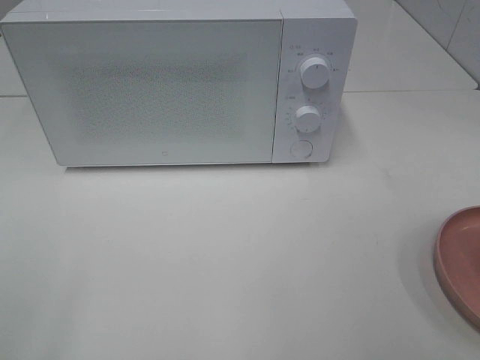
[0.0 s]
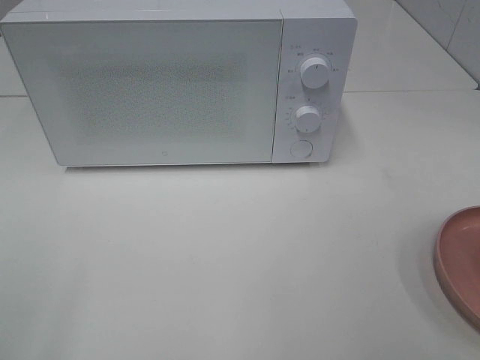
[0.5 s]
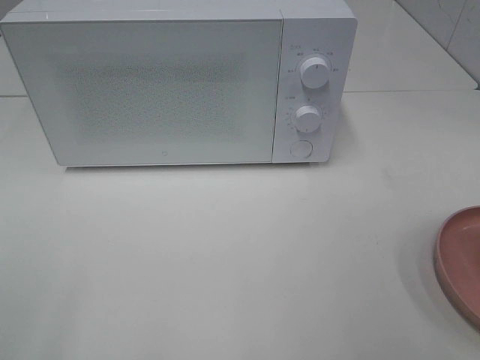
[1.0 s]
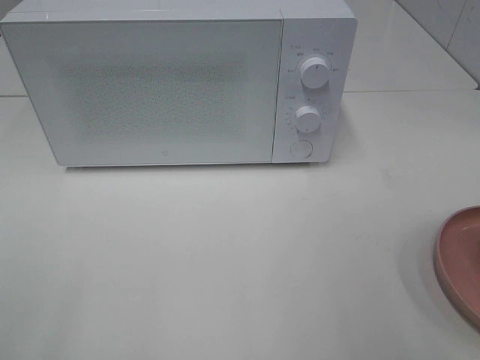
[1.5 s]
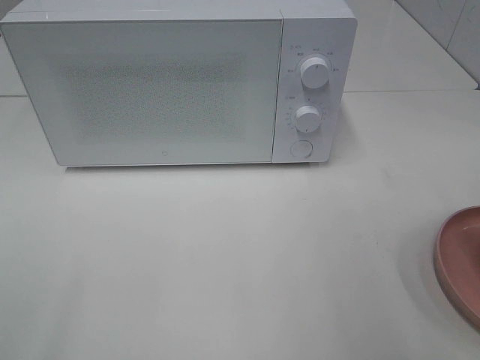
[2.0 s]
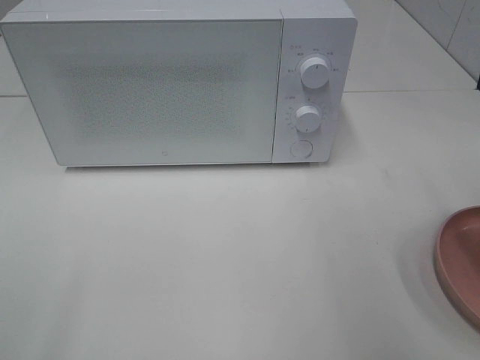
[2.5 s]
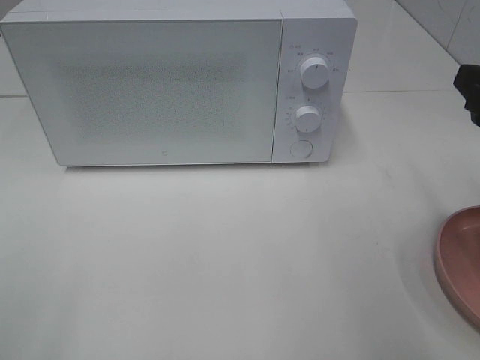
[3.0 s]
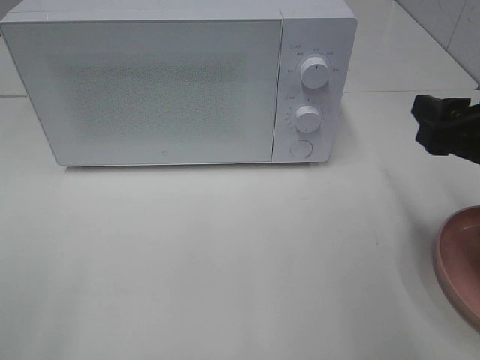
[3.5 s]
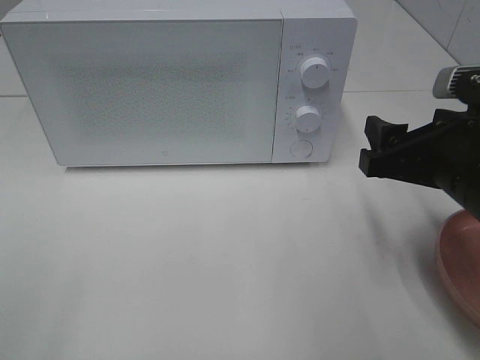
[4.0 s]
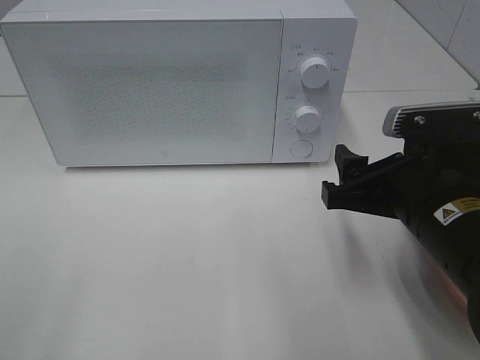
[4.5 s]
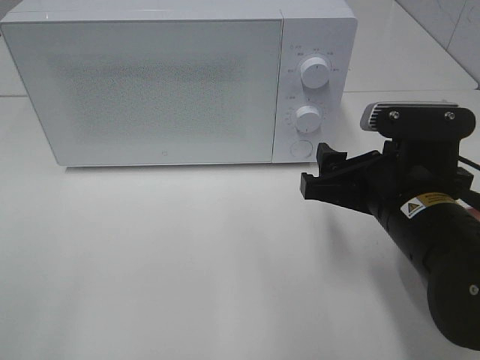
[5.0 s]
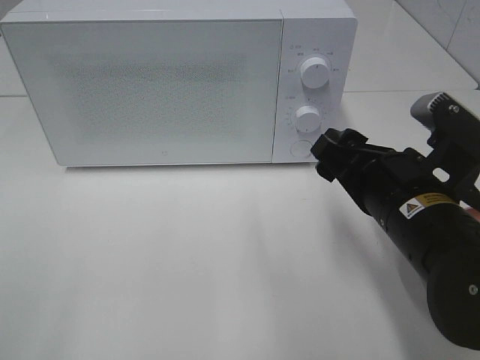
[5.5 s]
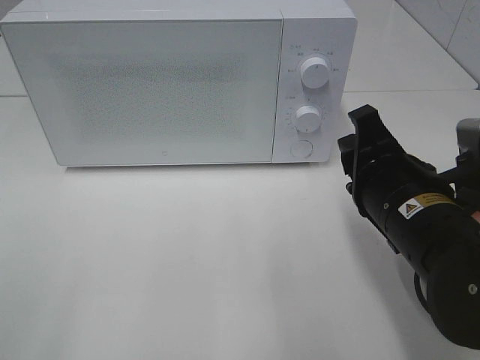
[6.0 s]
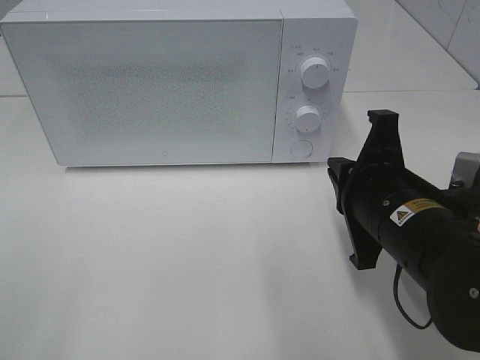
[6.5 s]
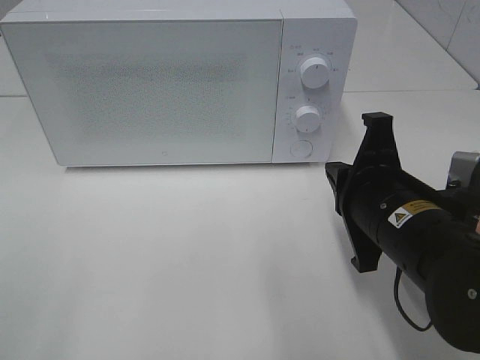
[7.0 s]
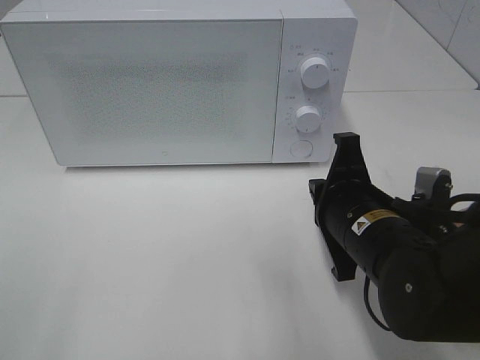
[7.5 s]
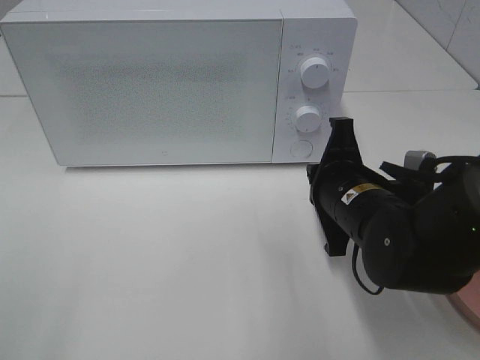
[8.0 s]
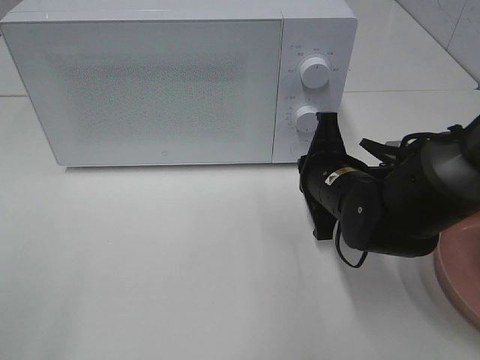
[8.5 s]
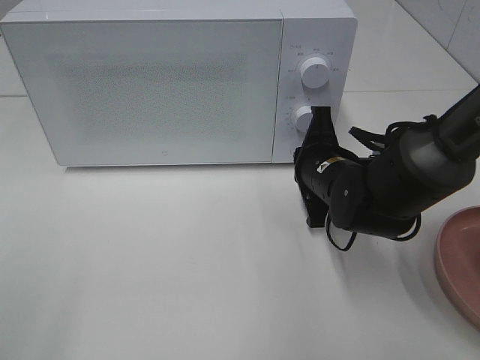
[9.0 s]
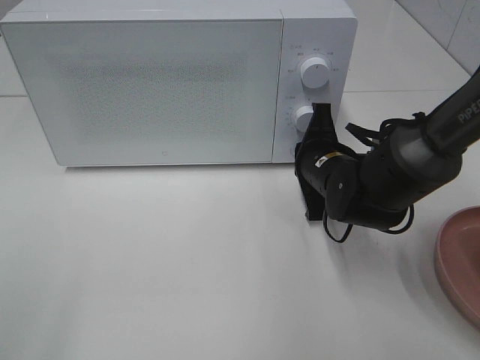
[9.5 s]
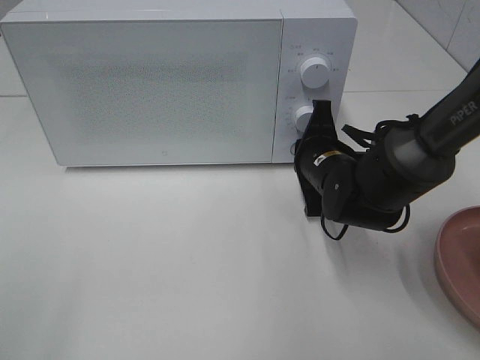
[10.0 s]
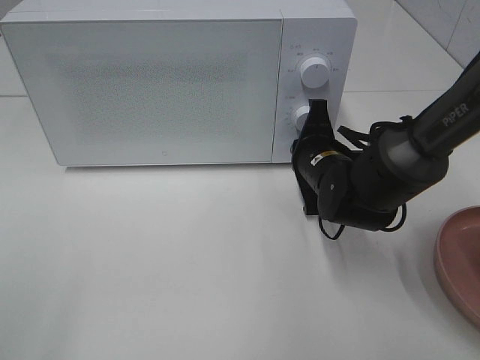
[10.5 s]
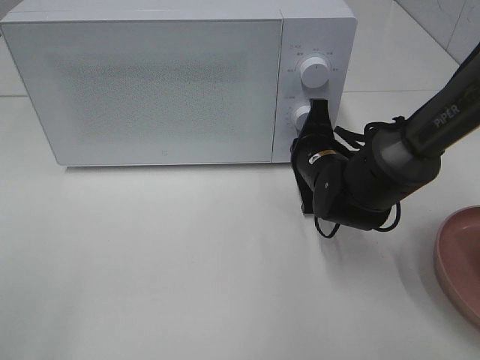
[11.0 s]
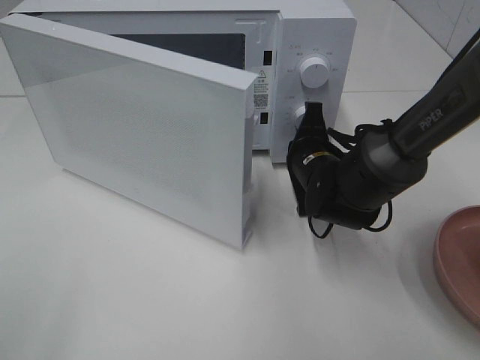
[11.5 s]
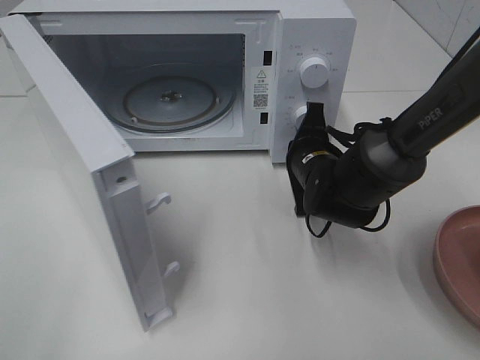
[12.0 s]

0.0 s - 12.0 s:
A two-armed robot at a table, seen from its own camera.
Task of the whole recording: Heat the burger.
2.0 s - 4.0 s: The right gripper travels downward, to the left and forward by roughly 15 cm.
4.0 s - 6.0 s: The right gripper shifts approximately 5 cm to the left, and closes up.
6.0 s - 8.0 s: The right gripper shifts by roughly 5 cm, and closes its fingers.
8.0 s - 10.0 s: The right gripper heads forward, covering some 10 cm.

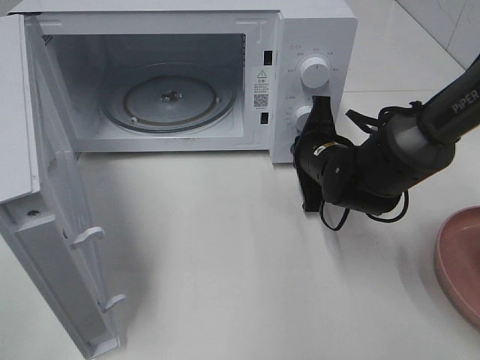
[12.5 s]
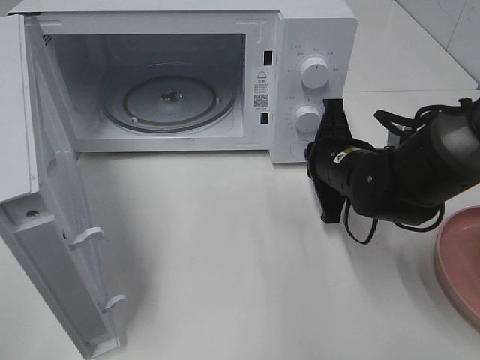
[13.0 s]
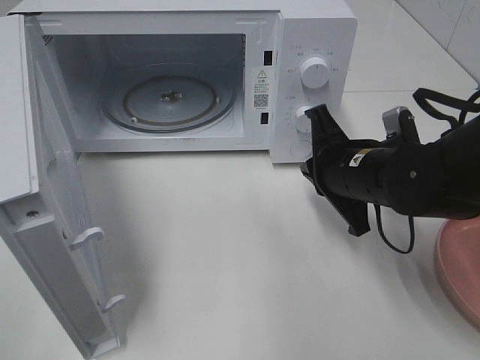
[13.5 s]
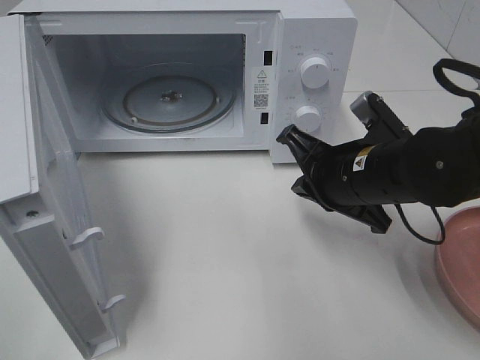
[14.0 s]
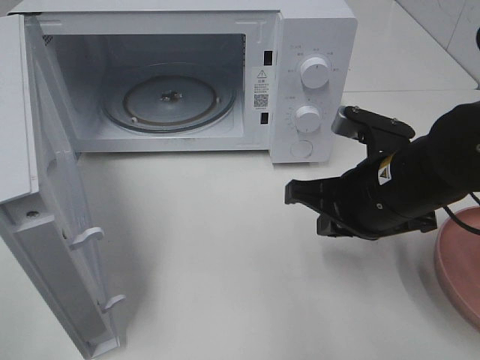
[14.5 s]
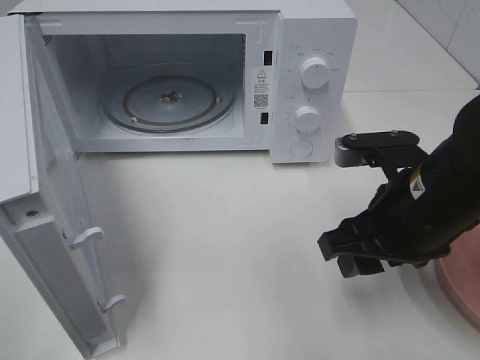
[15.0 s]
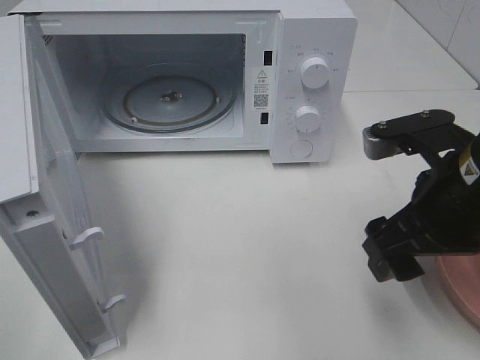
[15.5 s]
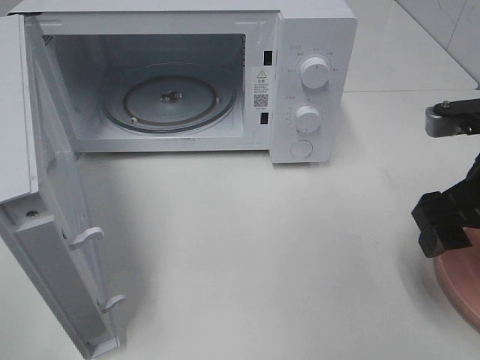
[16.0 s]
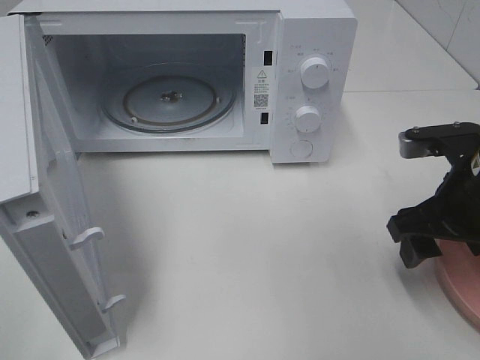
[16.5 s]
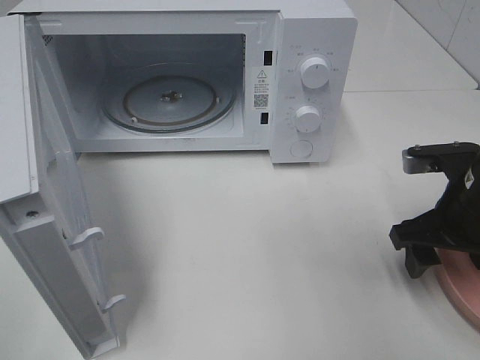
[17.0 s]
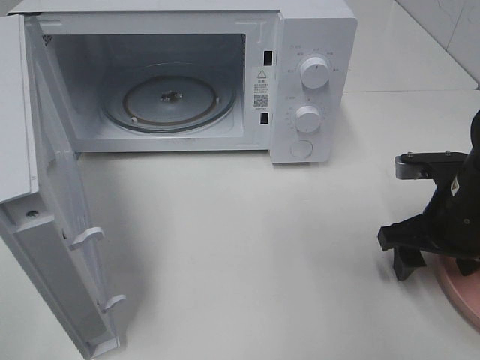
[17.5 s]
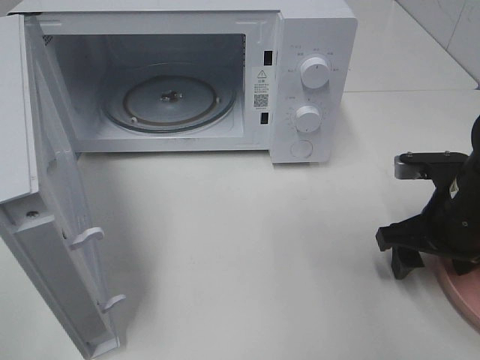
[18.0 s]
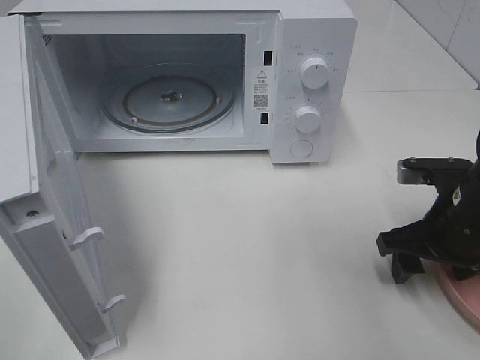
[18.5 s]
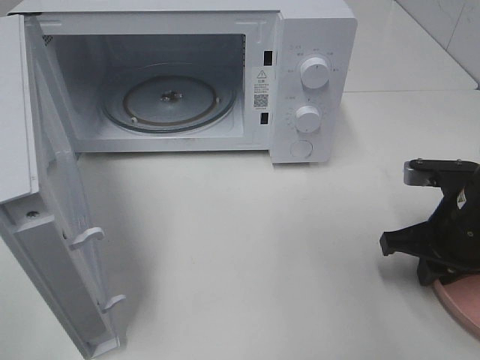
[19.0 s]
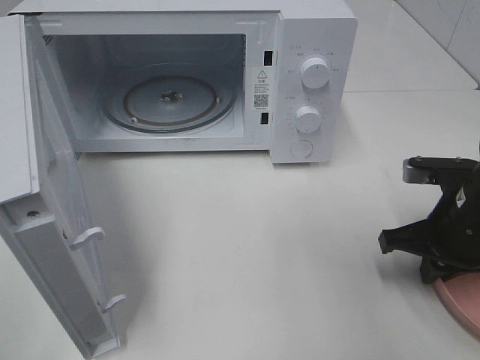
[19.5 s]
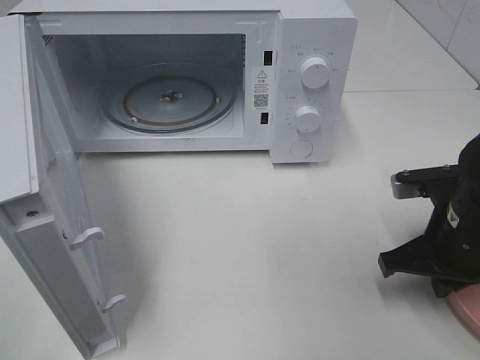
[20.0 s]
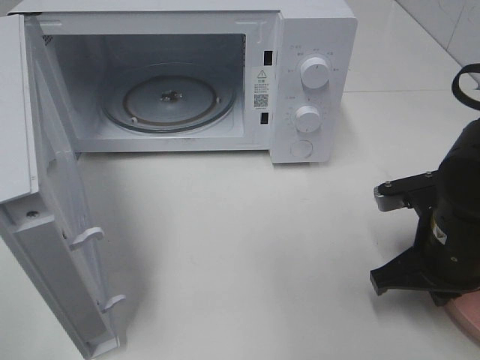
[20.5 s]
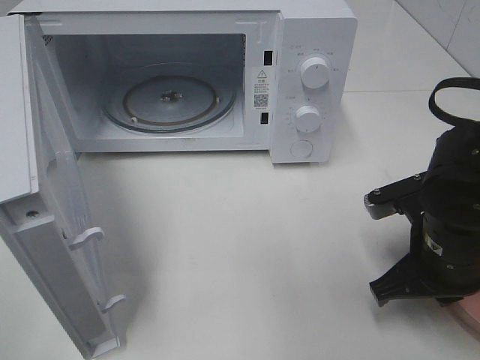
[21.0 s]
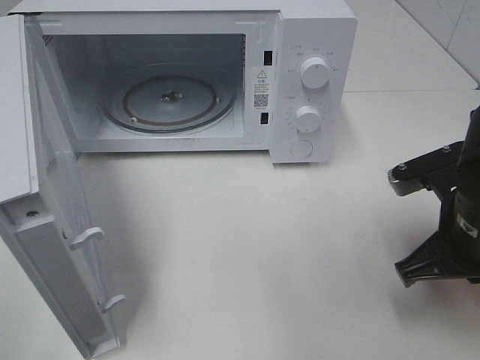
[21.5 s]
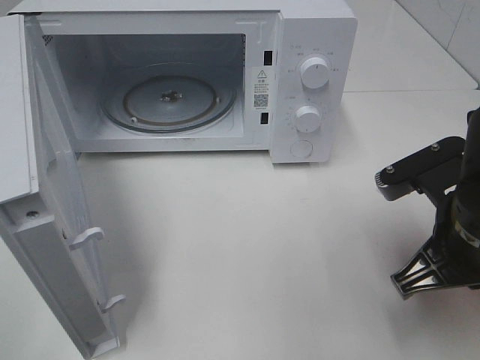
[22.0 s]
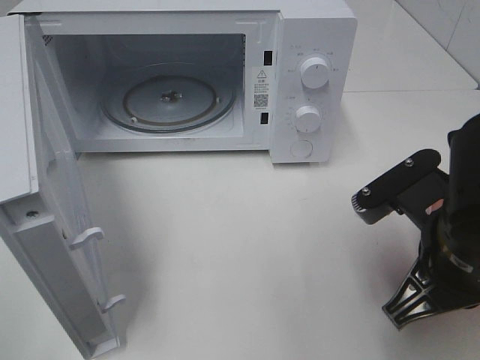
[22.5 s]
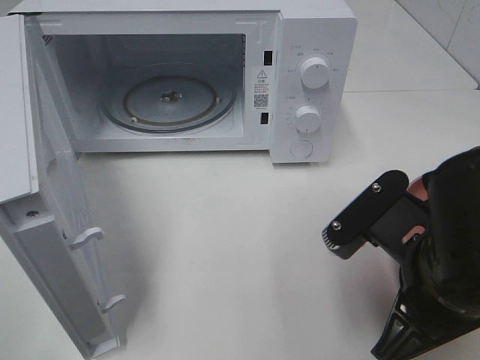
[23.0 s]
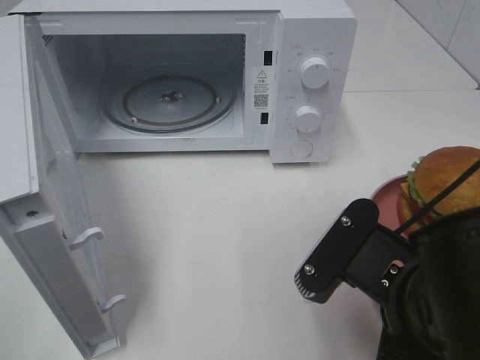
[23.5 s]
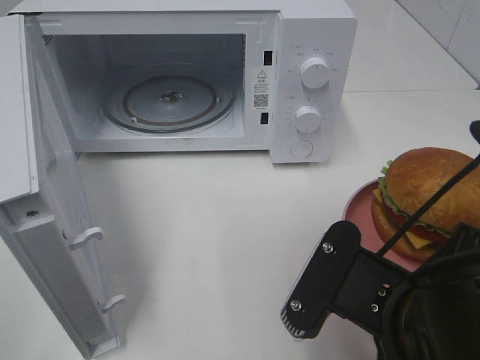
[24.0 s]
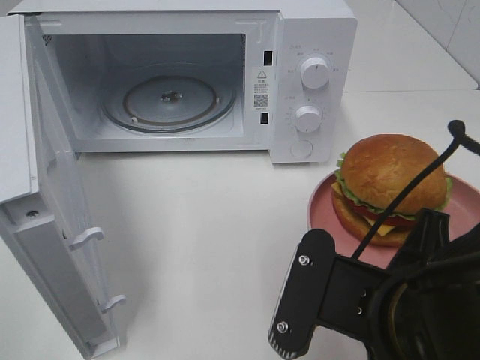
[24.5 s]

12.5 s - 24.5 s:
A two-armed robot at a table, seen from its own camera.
Task of the whole recording: Heat the burger.
Step, 13.5 s - 20.0 s: Right hand: grab the plate with the hamburger.
12.5 s - 14.5 s: The right gripper is displaced backward and upward by about 15 cm.
14.5 s - 16.5 s: The right gripper goes some 10 cm to the right, and opens up.
16.5 s - 18.5 s: The right gripper goes approximately 5 cm downward.
18.5 s - 20.5 s: The right gripper closes its fingers.
20.5 s - 22.5 s: The right gripper heads upward and backward, covering roughly 10 cm.
22.5 s - 24.5 s: The right gripper goes some 10 cm backward and to the left.

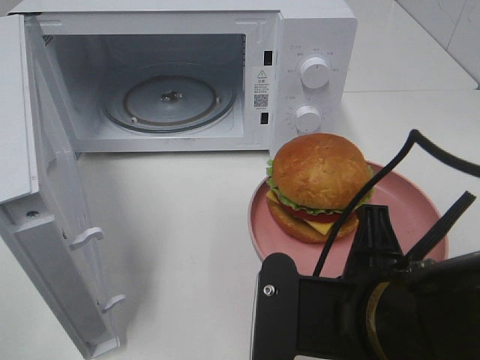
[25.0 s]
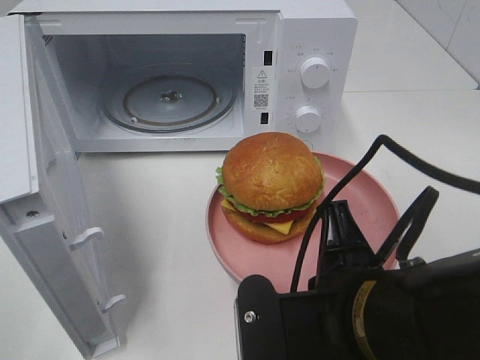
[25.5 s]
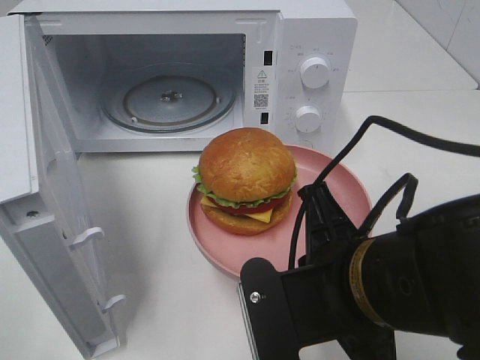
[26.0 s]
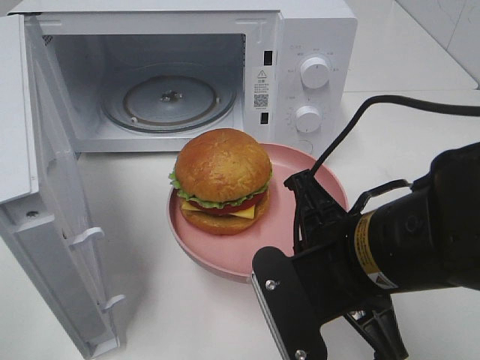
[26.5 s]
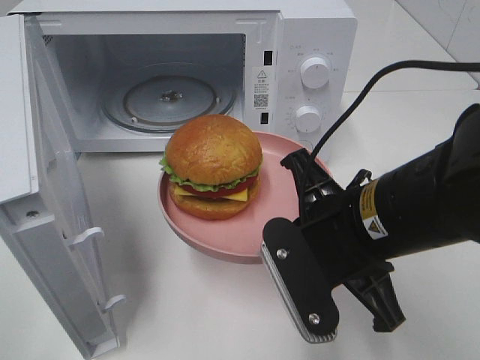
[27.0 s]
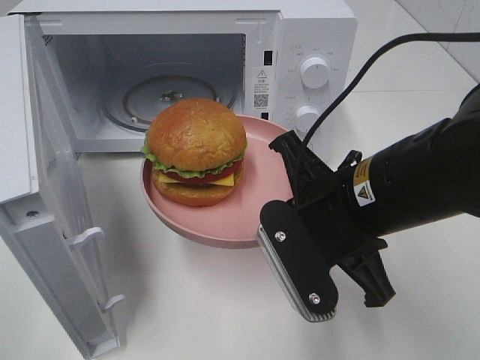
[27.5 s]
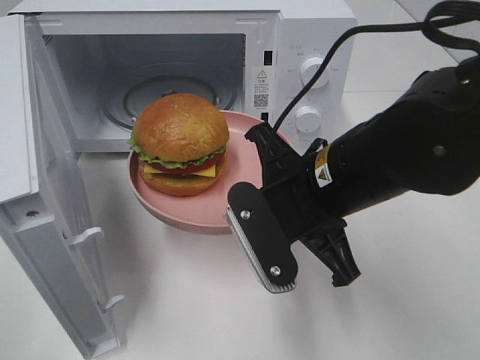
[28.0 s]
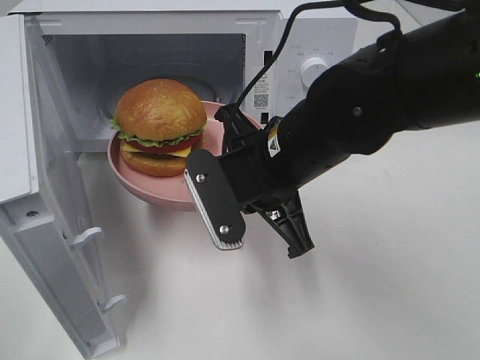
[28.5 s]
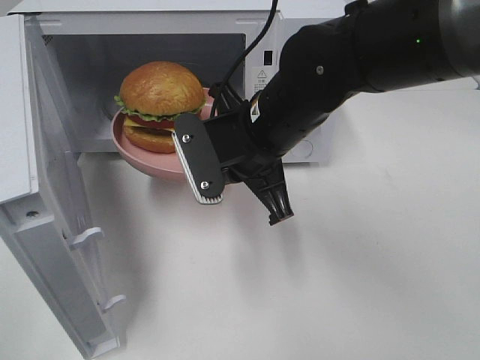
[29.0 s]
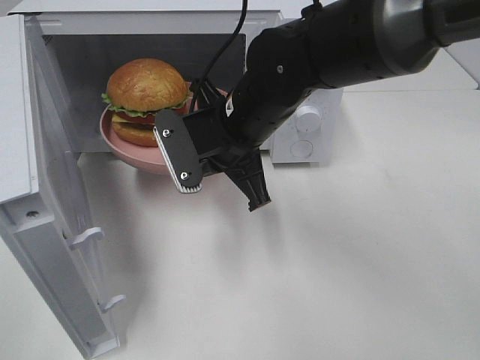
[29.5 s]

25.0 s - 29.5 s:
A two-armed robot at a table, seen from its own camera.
Task of the whole recording: Heat the burger.
25.0 s - 27.0 s: The right gripper goes about 10 cm forward.
27.0 s - 29.5 s: The right gripper shifts roughly 15 cm forward and to the left.
